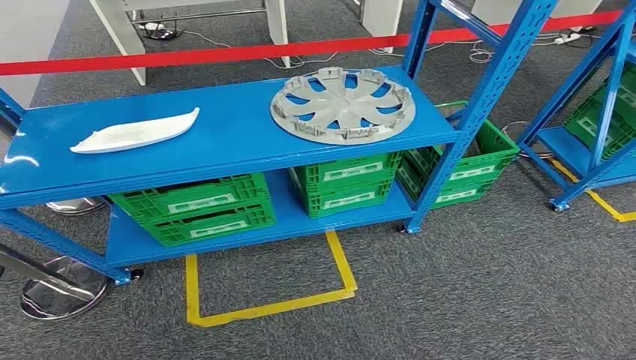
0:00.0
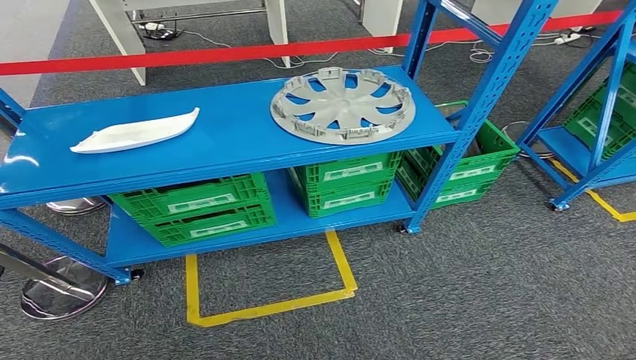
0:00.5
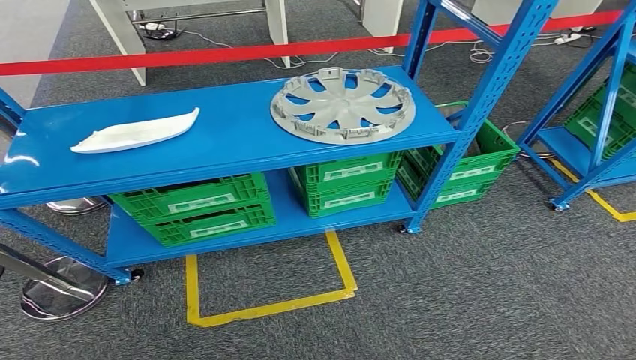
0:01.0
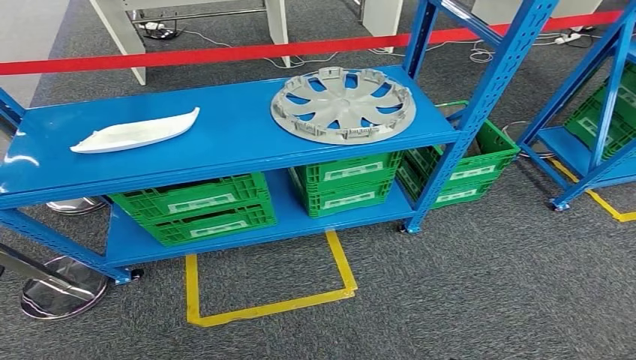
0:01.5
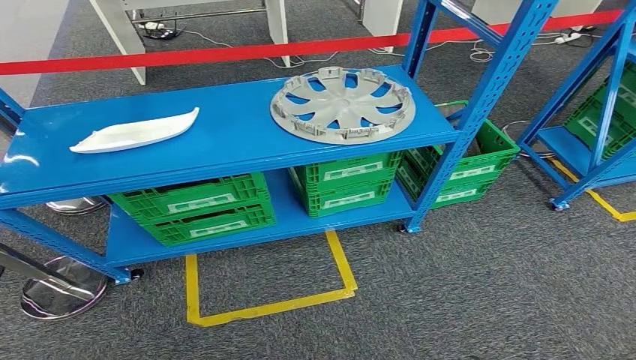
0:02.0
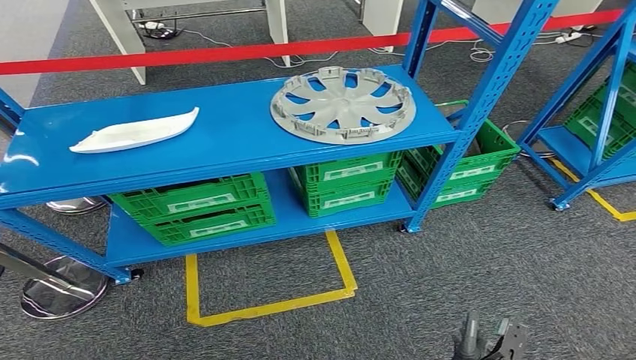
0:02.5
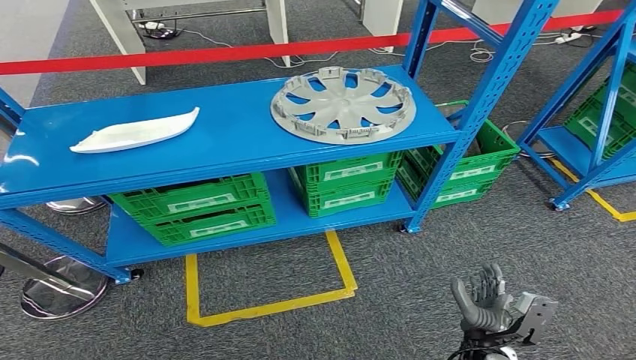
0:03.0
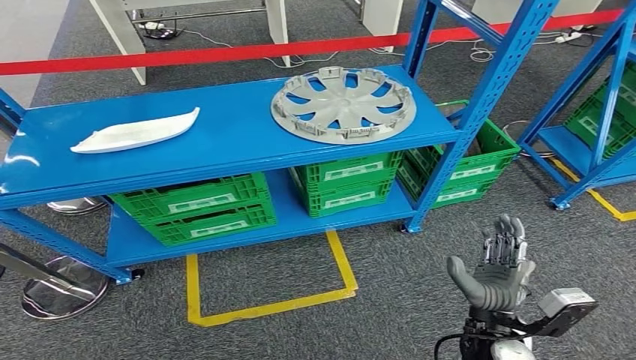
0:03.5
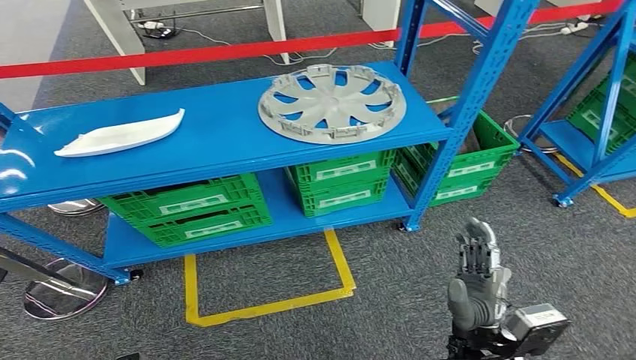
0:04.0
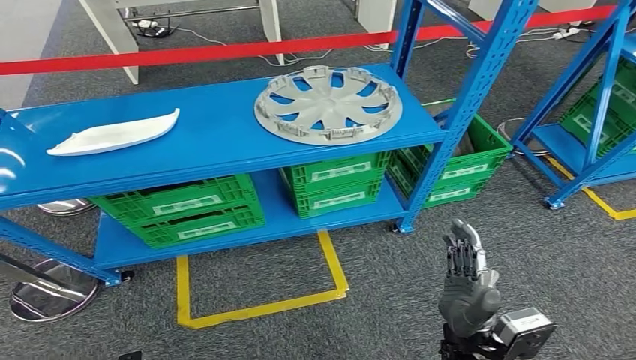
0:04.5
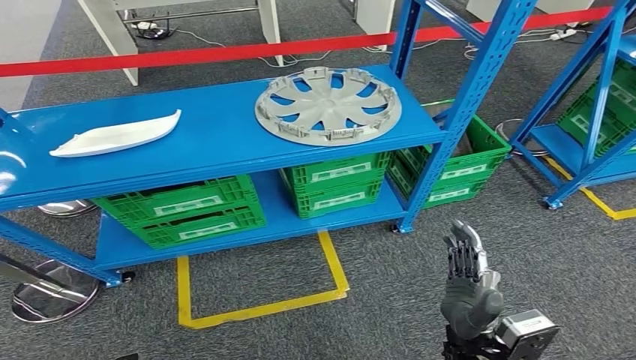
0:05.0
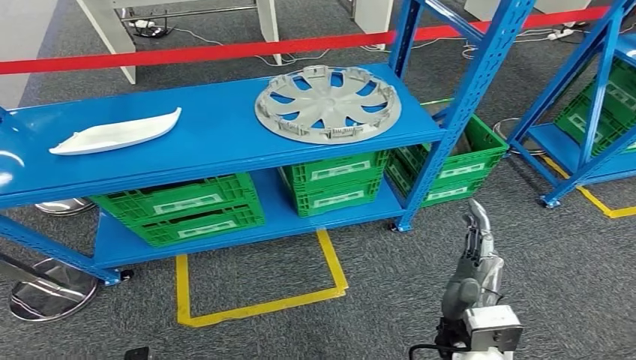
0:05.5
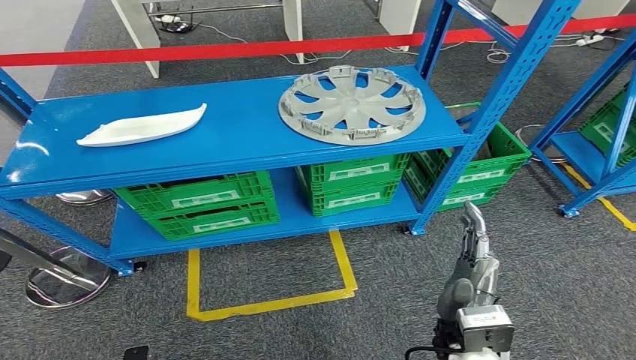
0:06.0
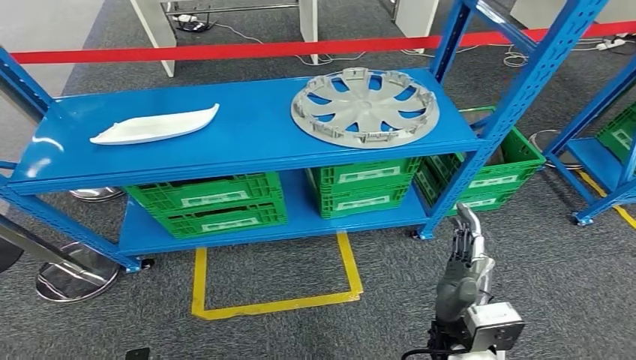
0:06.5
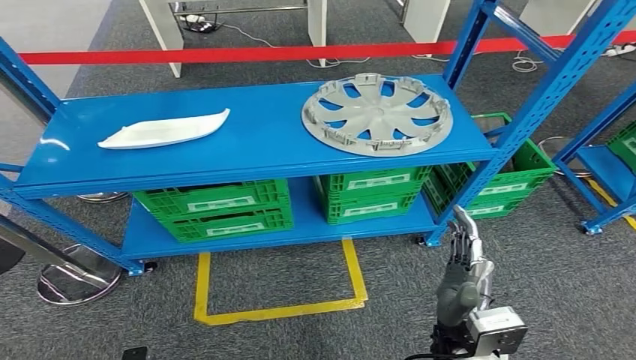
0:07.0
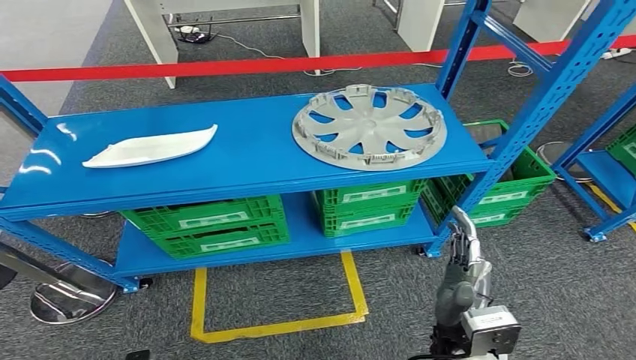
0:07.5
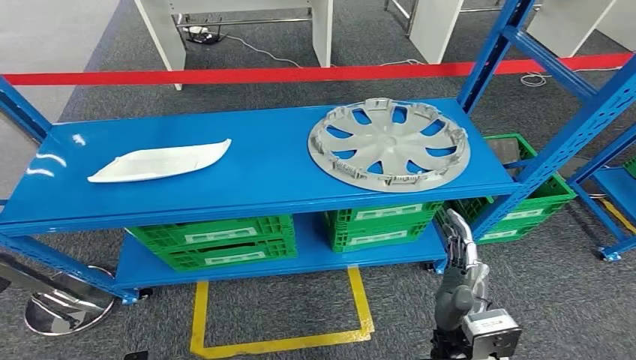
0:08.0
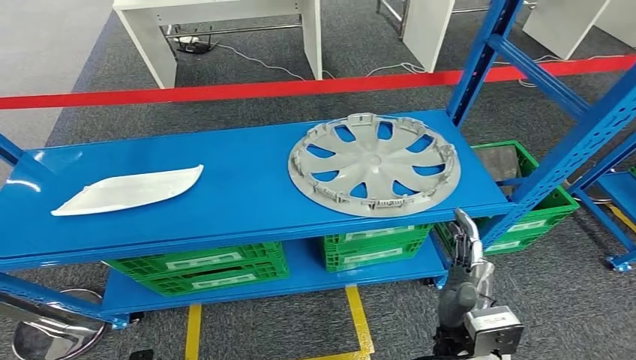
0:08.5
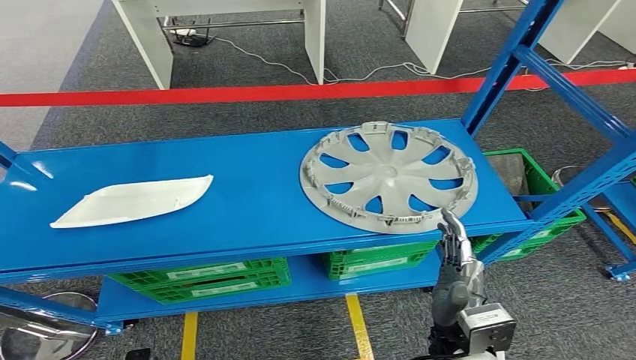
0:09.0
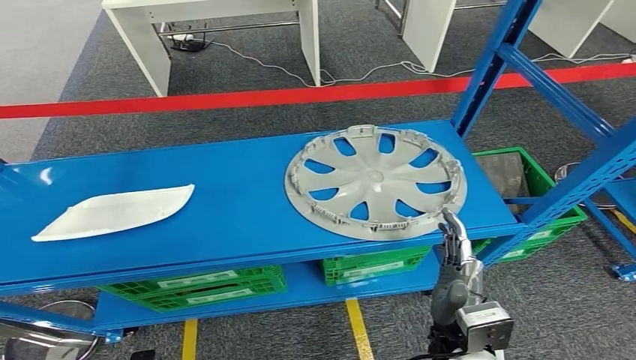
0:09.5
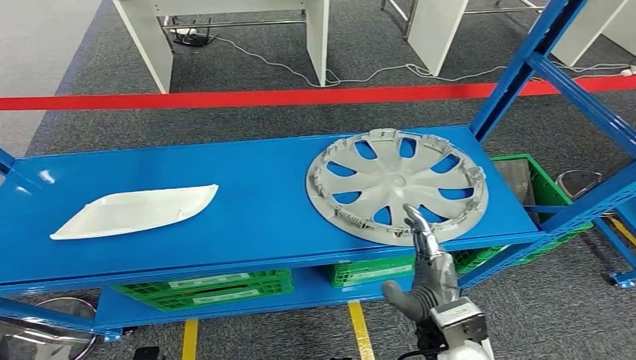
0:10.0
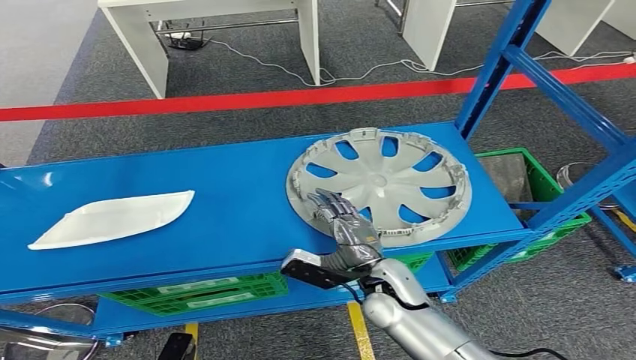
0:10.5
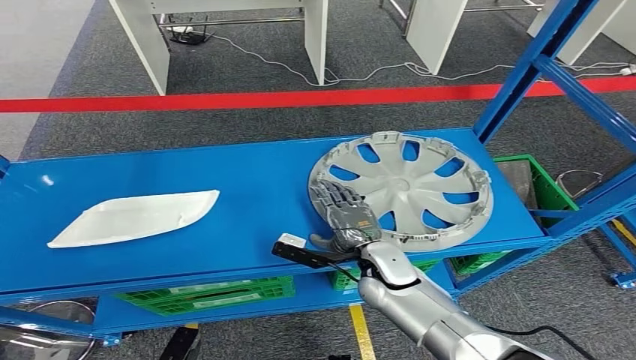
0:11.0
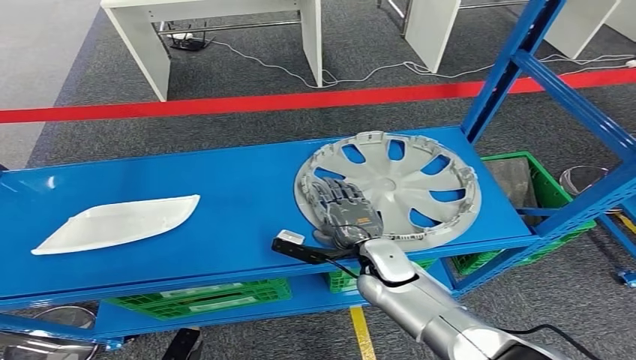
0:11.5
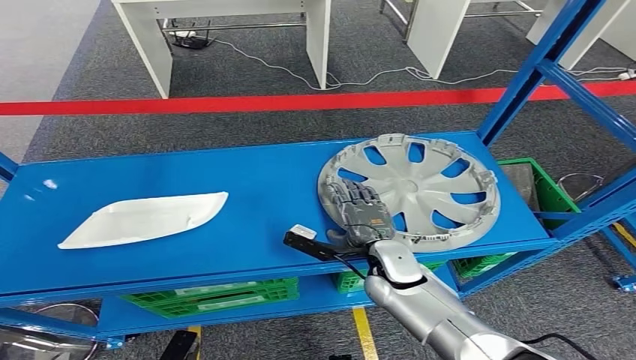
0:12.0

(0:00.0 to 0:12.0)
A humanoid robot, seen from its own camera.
0:02.0 - 0:04.0: The right hand travels upward and forward by approximately 25 cm.

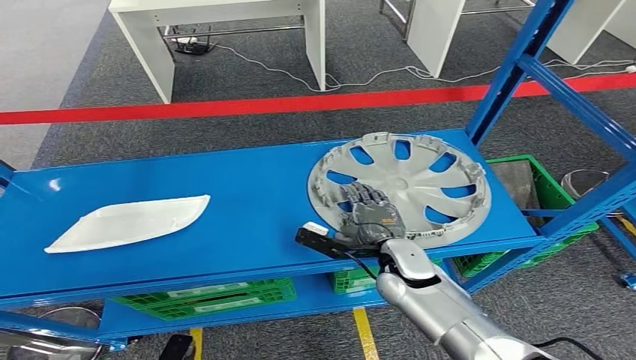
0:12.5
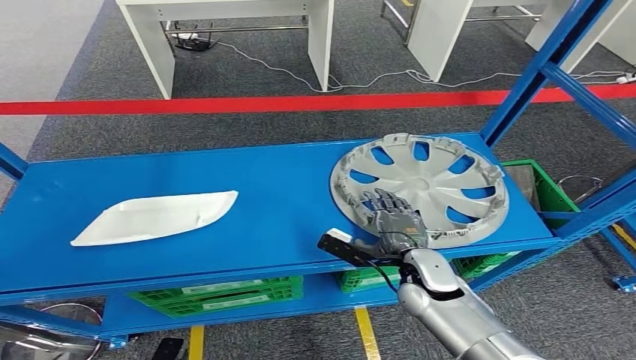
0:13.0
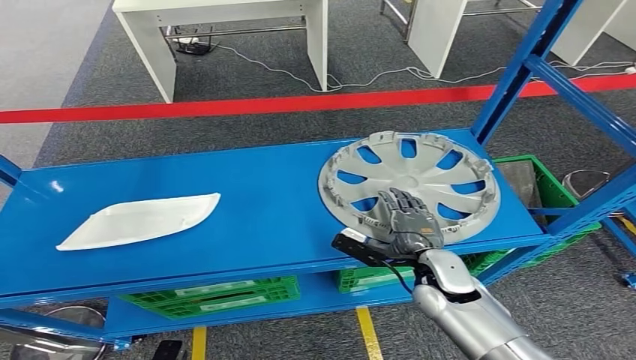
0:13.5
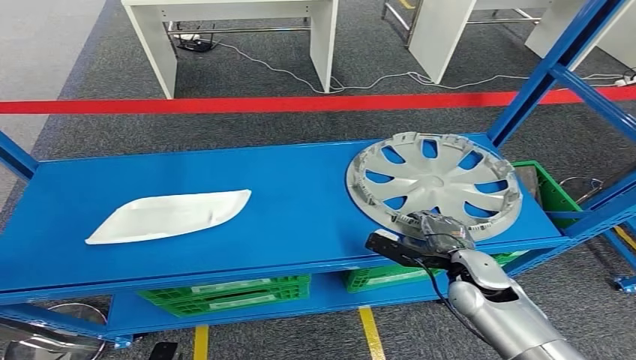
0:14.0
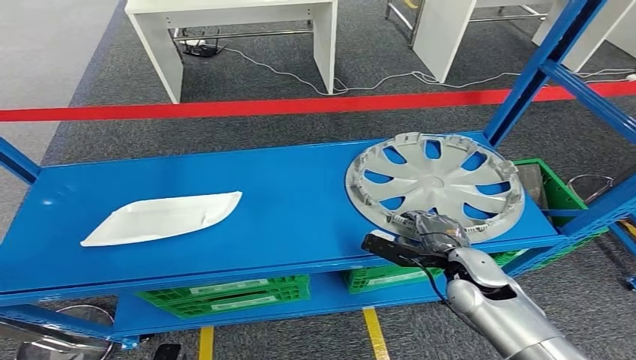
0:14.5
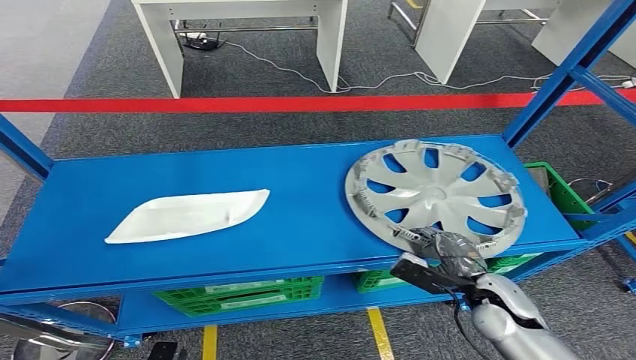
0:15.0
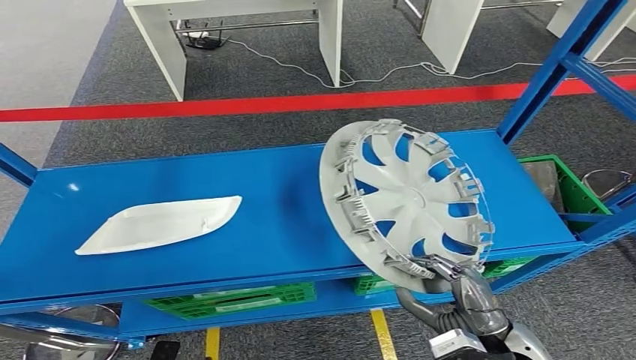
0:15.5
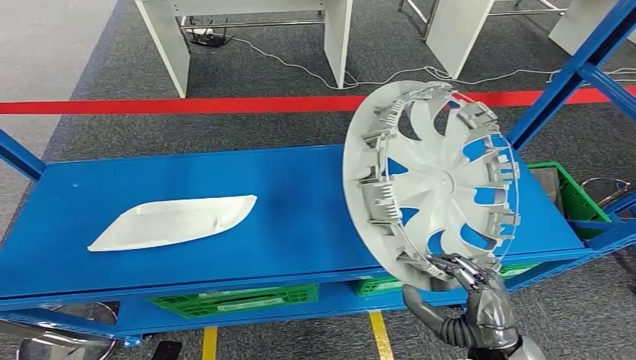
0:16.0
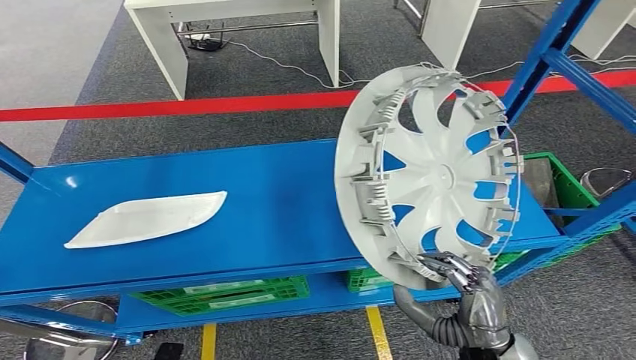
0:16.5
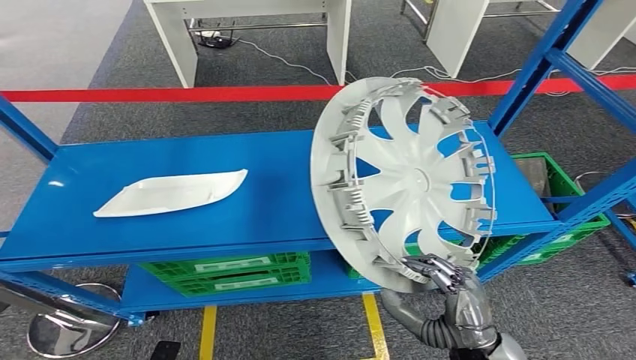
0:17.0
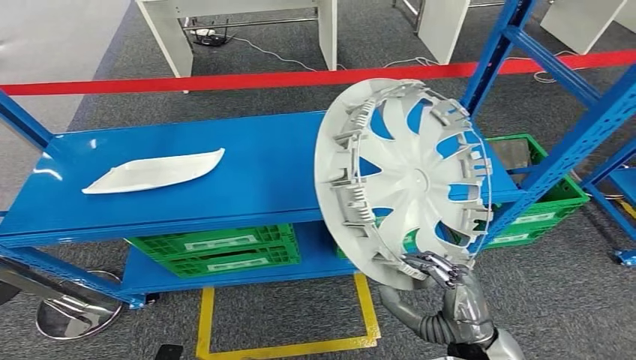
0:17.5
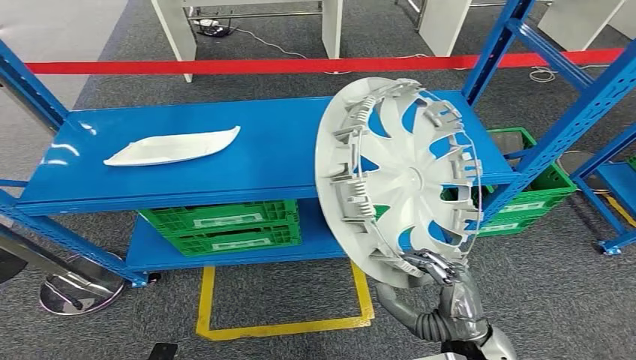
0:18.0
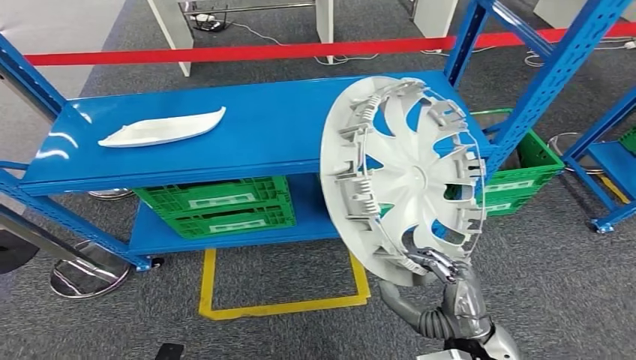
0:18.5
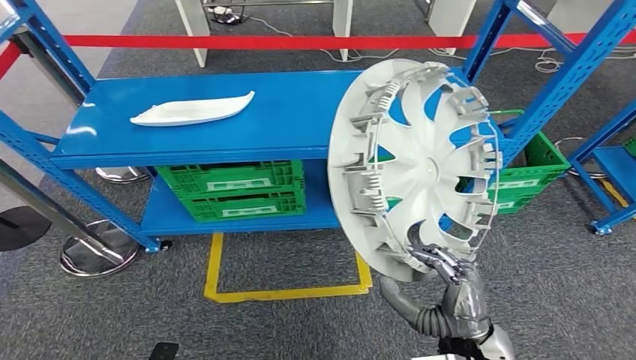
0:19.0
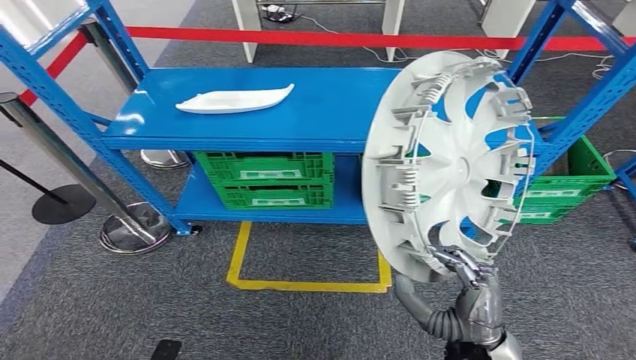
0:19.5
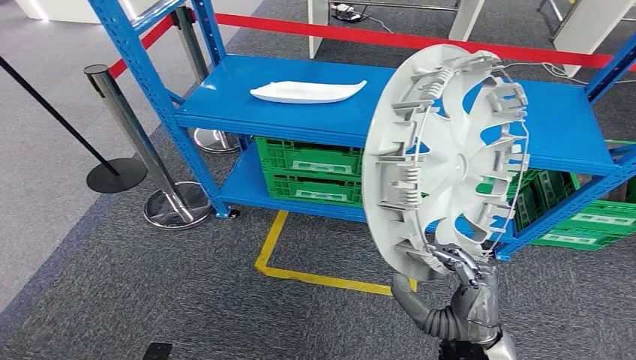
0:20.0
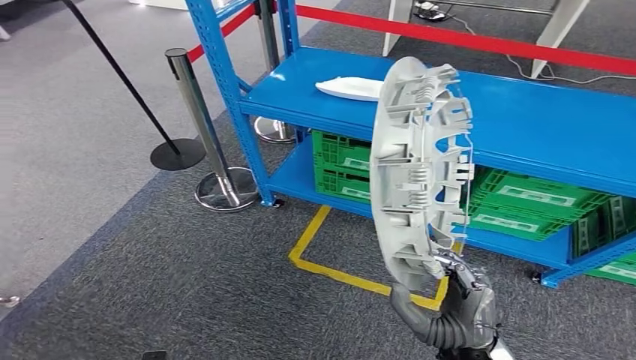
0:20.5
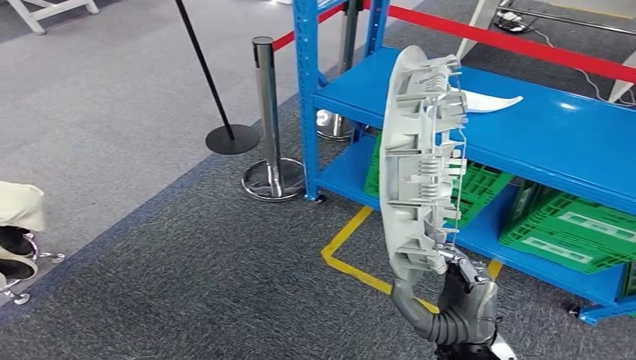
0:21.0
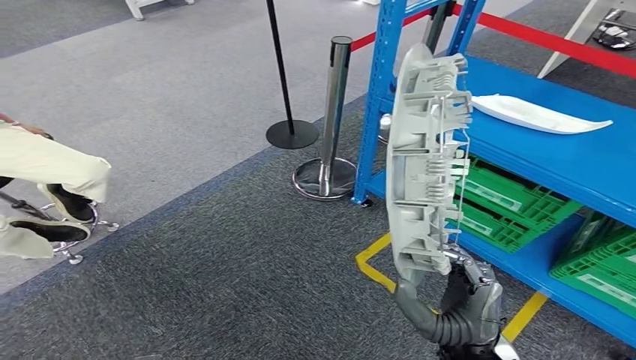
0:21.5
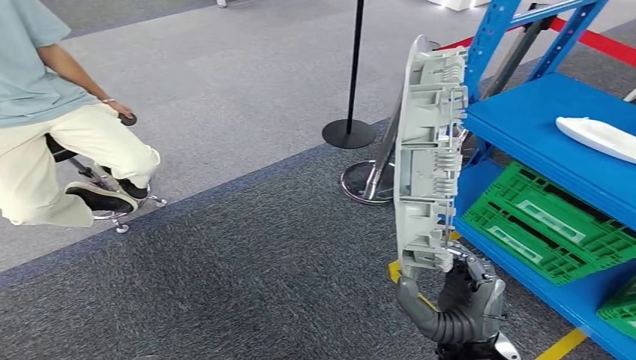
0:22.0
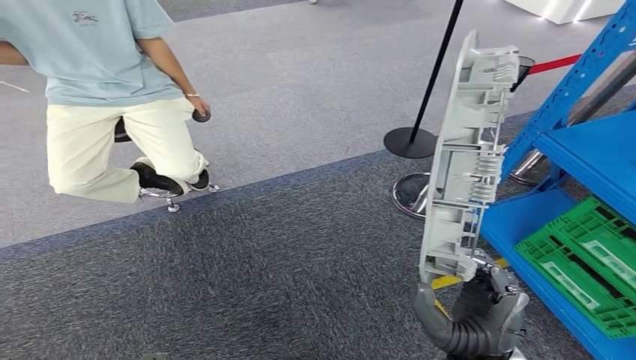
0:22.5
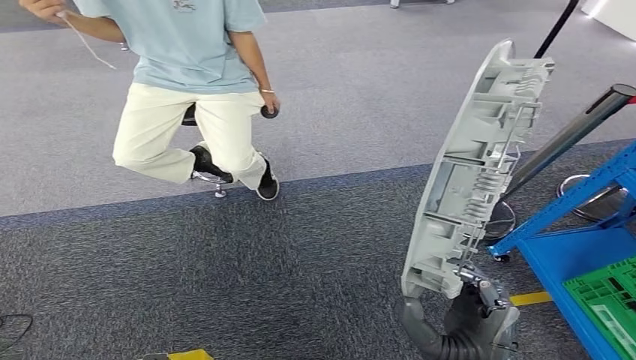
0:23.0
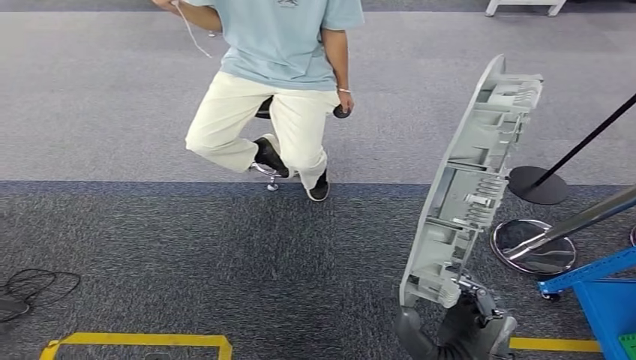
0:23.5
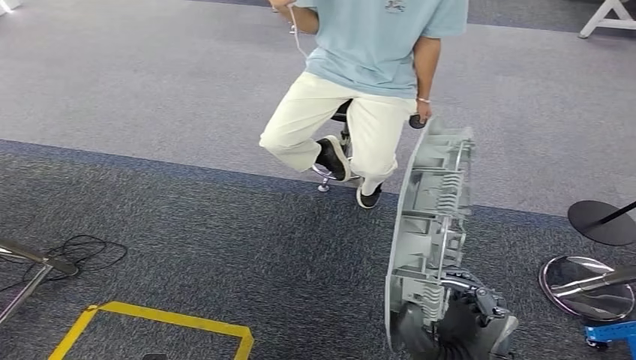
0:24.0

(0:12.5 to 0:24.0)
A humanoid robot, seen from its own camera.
Step, 0:12.5 - 0:15.5: Pick up the small component from the shelf.
